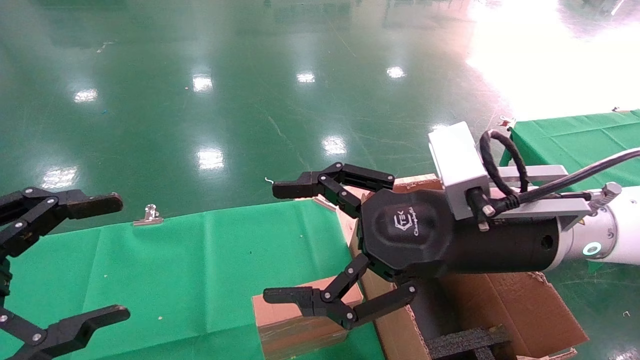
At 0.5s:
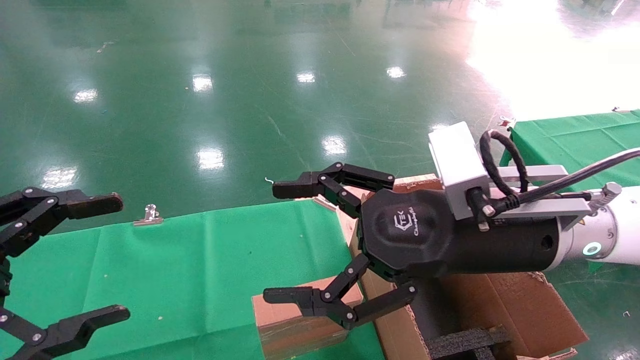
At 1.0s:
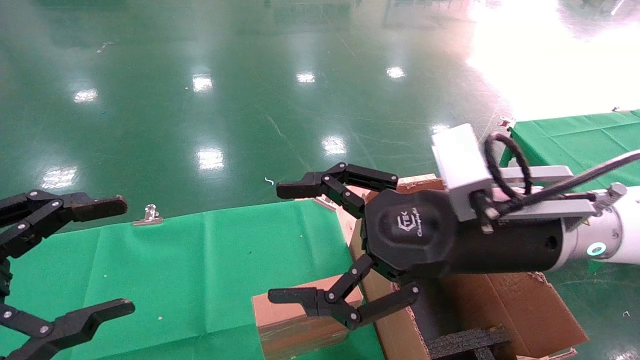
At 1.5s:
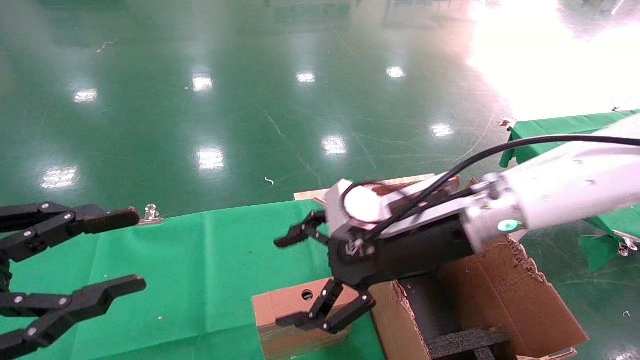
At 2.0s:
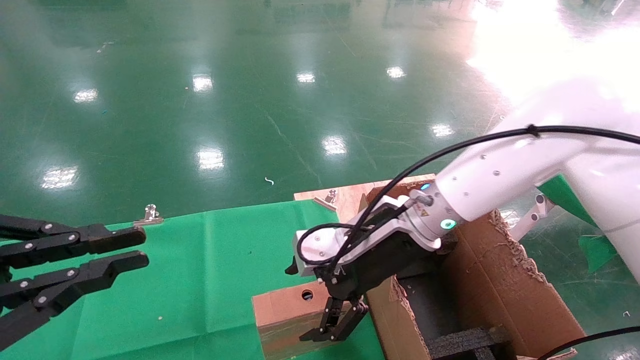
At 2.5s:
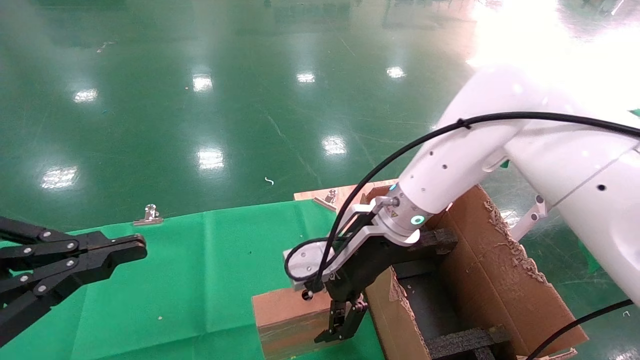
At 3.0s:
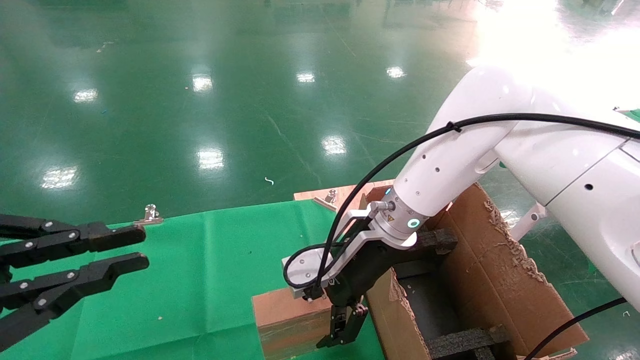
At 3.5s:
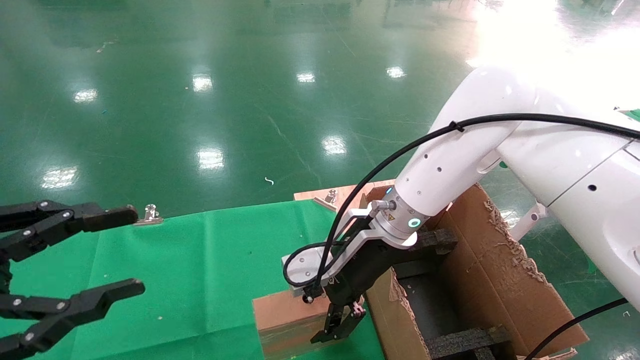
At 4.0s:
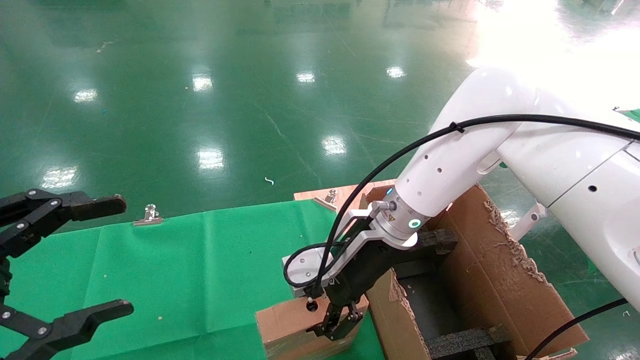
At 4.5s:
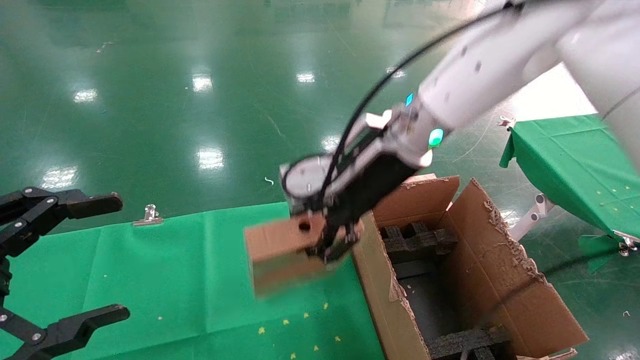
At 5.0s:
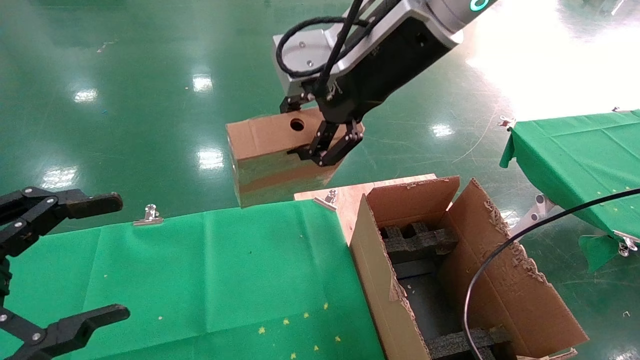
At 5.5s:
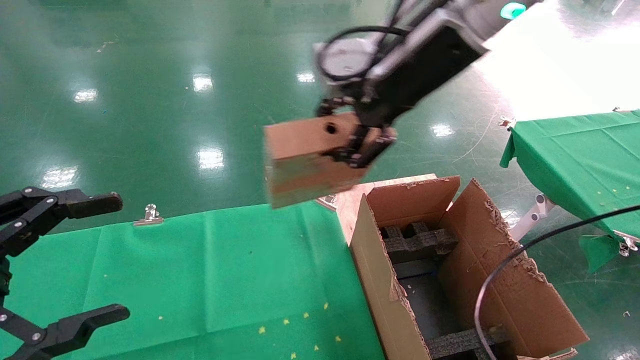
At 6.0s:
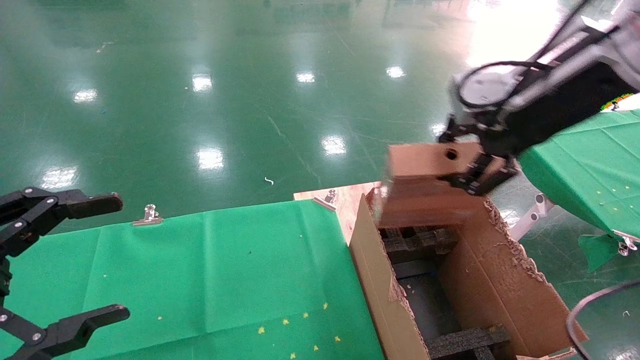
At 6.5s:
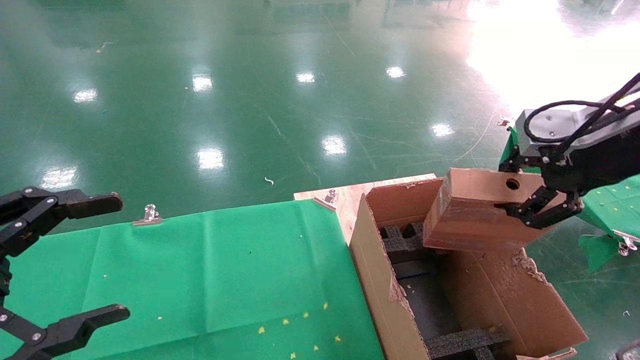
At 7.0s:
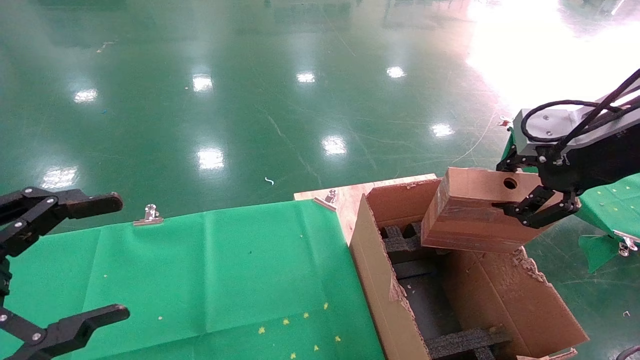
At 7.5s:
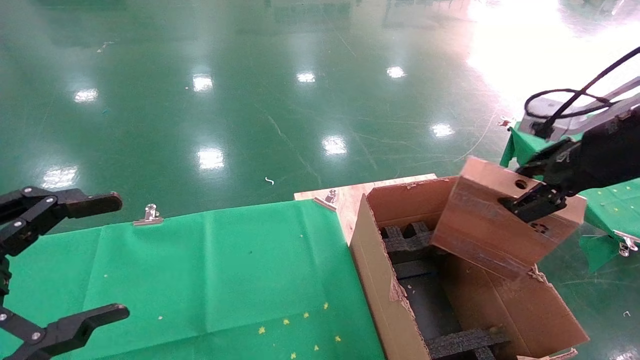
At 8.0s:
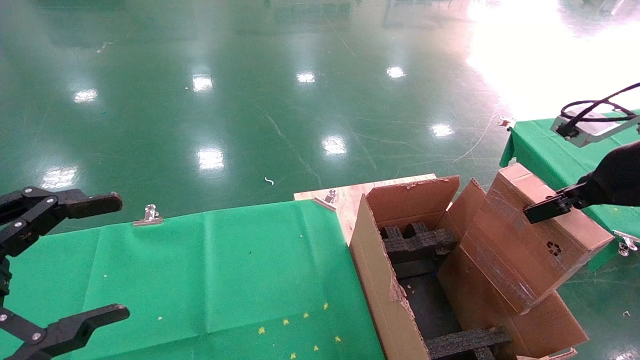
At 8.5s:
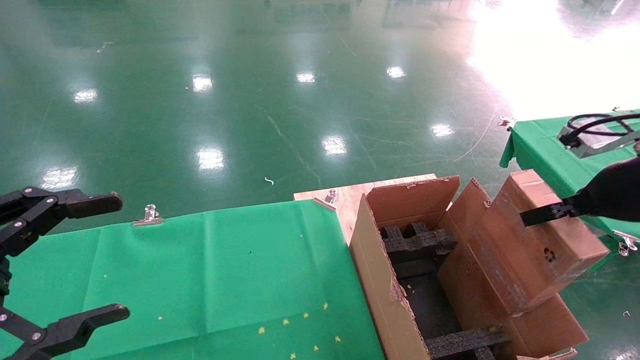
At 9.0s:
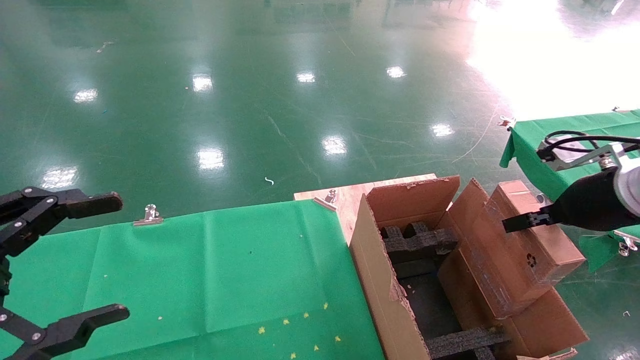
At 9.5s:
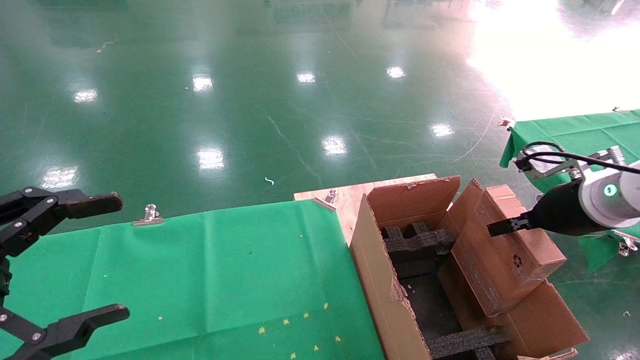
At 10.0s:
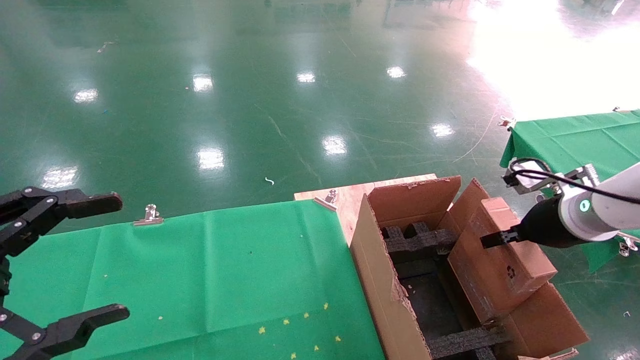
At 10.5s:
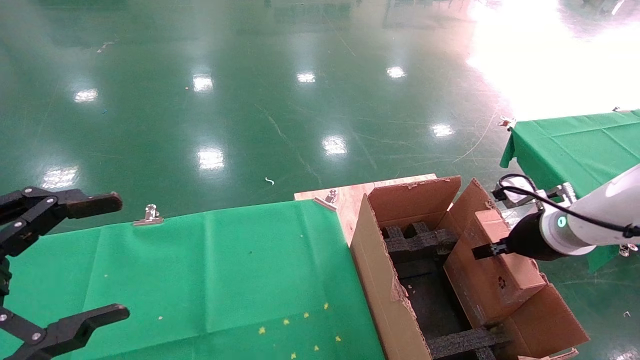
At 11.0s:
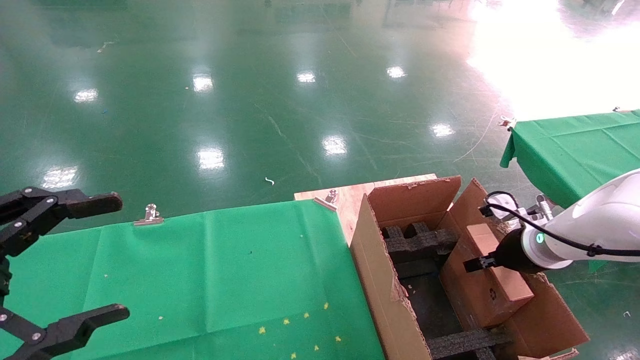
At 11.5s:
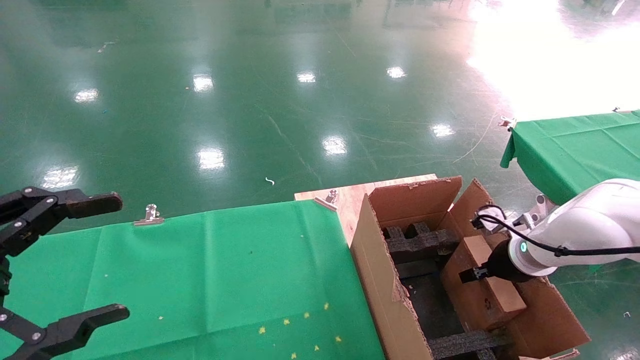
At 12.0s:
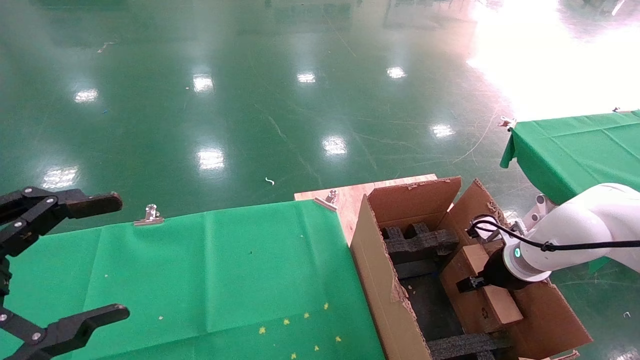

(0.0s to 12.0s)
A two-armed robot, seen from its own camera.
Task of the whole recording: using a robotic arm to pick up a cardboard box and palace it the carton.
Step, 1.0s - 4.0s: Pick up the mouse and the power cord paper box.
0.0s - 2.0s: The right gripper goes some 10 cm forward and to the left. Meanwhile the left gripper closes up.
2.0s - 4.0s: The left gripper opens. The right gripper closes its fingers.
4.0s - 6.0s: The right gripper goes some 30 cm upward, to the right and backward.
6.0s - 8.0s: The right gripper moves to the right and downward, approximately 15 cm.
8.0s - 10.0s: The right gripper travels downward and forward by roughly 15 cm.
10.0s - 12.0s: The right gripper travels downward and forward by some 15 cm.

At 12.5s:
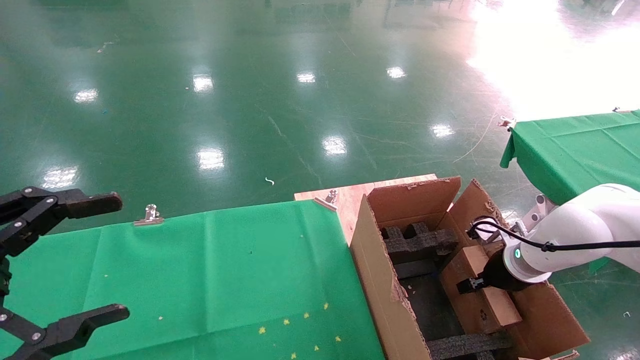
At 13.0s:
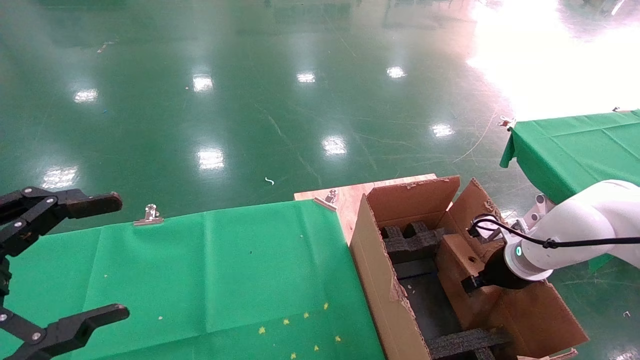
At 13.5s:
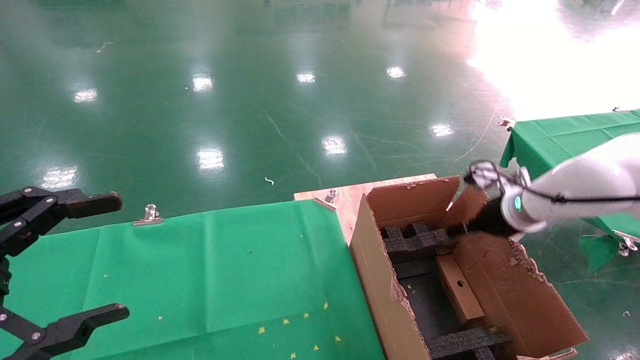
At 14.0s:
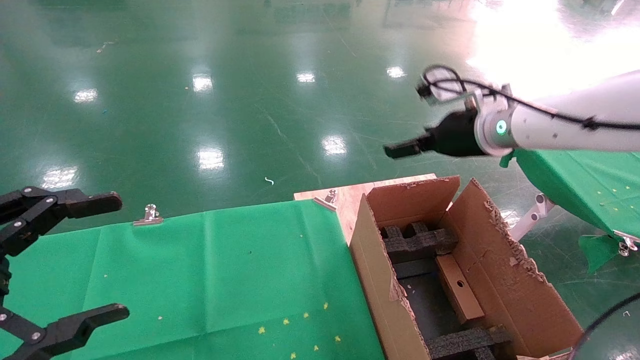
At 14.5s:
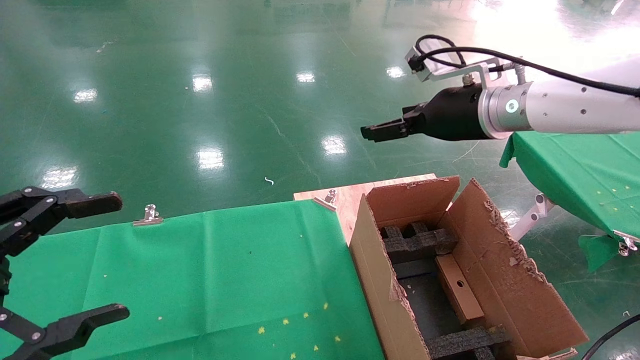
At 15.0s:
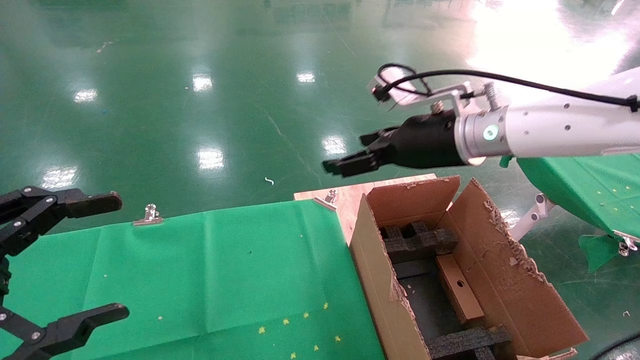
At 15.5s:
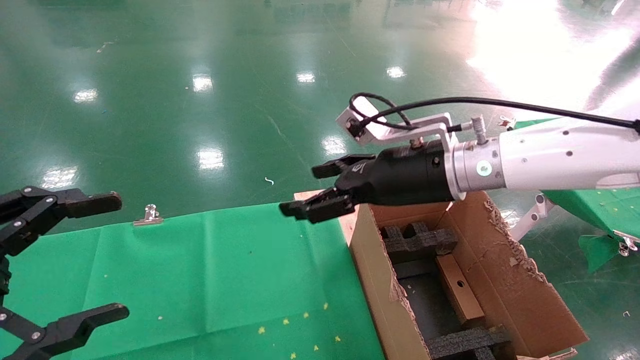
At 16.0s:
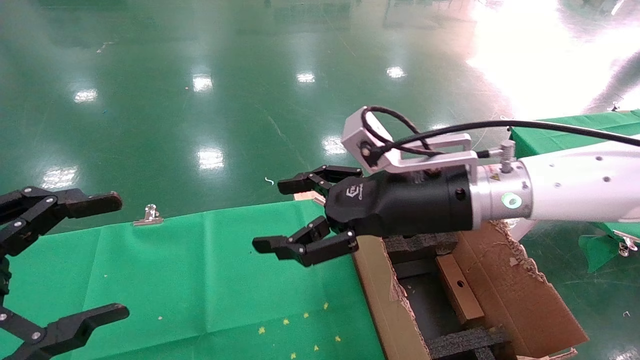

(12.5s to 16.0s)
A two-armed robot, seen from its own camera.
Task of the whole recording: using a robotic arm to pick up a cardboard box and palace it the carton.
12.5s - 14.5s: The right gripper heads upward and to the left, covering about 30 cm, and opens its fingers.
14.5s - 16.0s: The right gripper moves backward, to the left and downward, about 15 cm.
